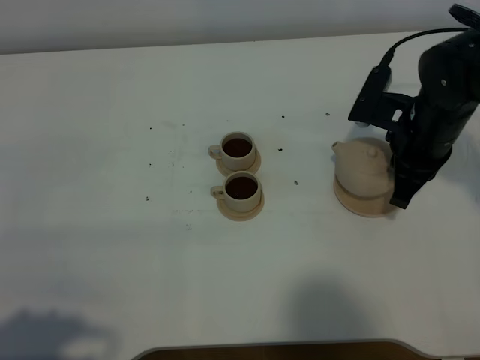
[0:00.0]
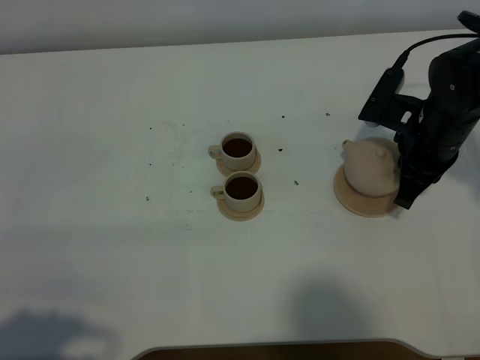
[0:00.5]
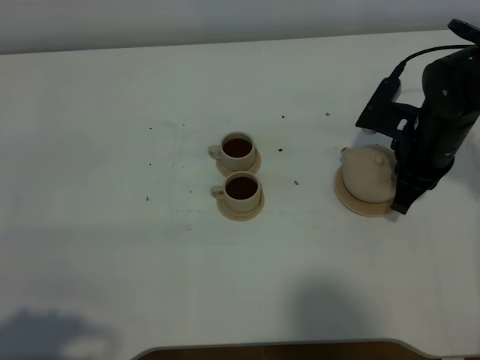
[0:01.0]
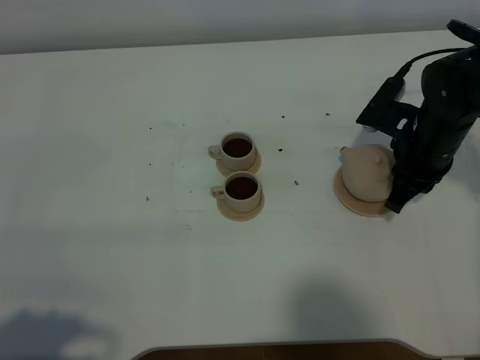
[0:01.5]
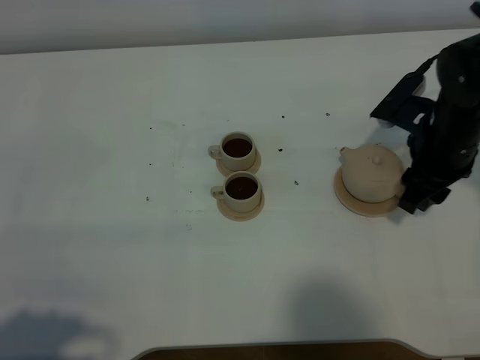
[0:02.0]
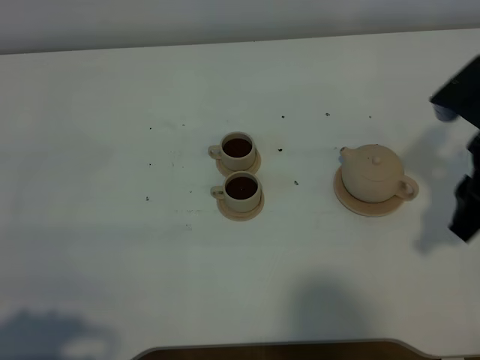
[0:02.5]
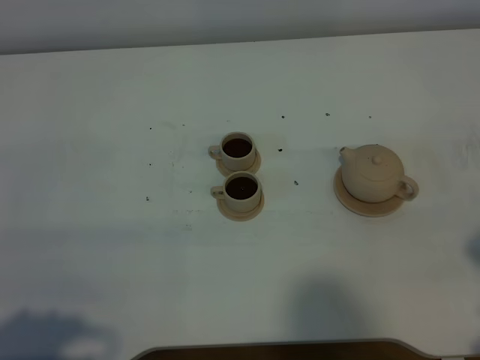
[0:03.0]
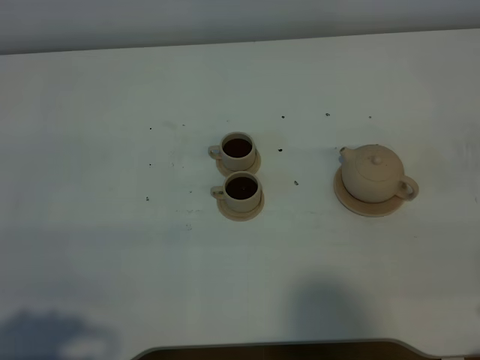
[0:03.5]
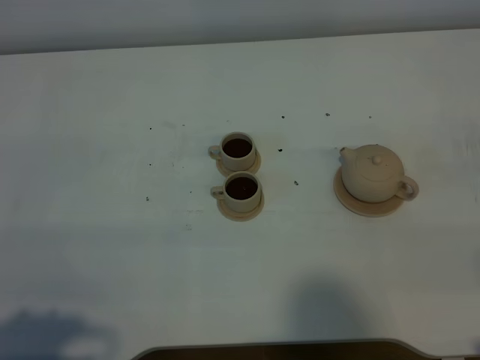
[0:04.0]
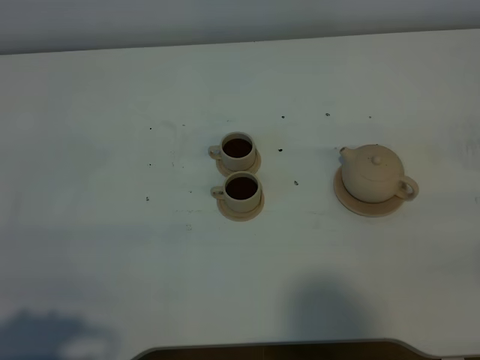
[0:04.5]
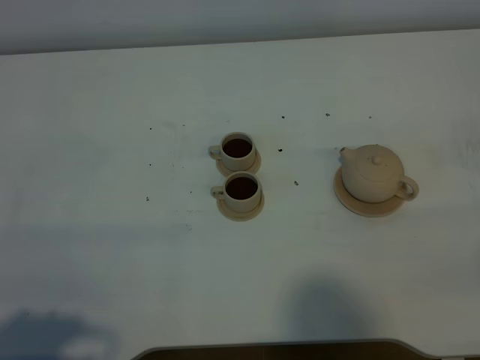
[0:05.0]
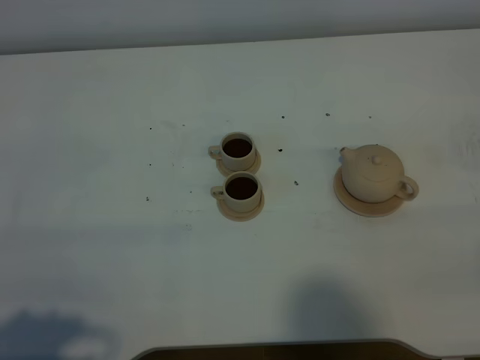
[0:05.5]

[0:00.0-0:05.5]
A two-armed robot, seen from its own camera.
Task of the whole recording: grasp the brown teapot and pour the tea into the two brown teacups one by one, put the brown teapot back in its original place.
0:00.0 to 0:02.0: The right gripper opens.
0:02.0 to 0:03.5: The right gripper shifts roughly 25 cm backward.
